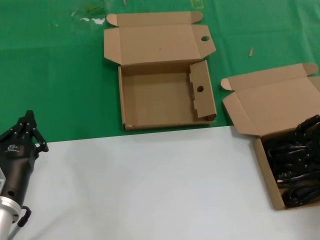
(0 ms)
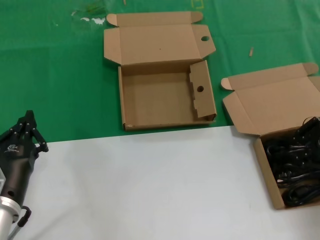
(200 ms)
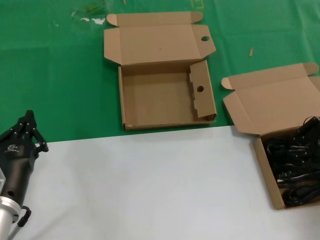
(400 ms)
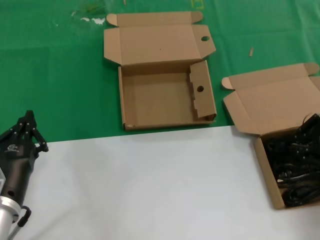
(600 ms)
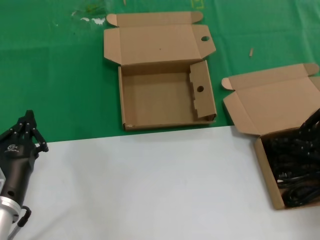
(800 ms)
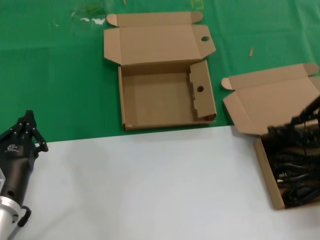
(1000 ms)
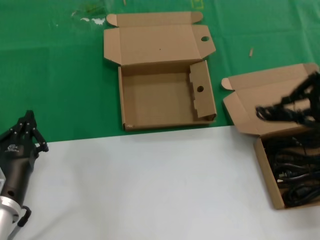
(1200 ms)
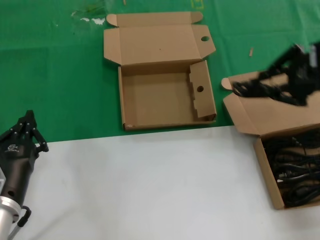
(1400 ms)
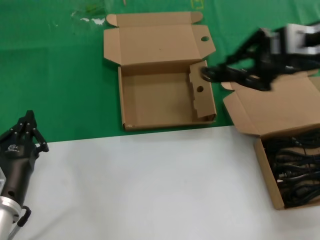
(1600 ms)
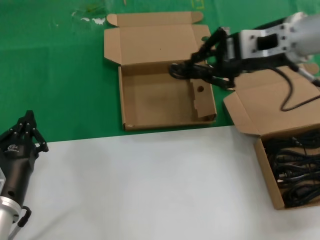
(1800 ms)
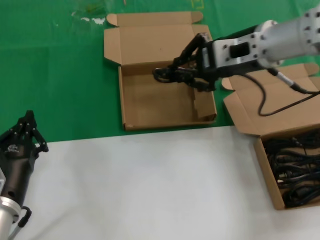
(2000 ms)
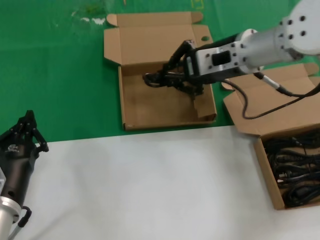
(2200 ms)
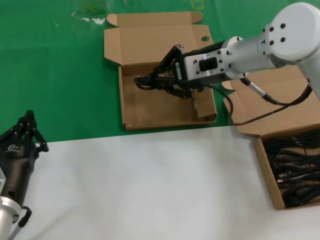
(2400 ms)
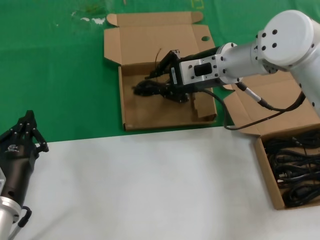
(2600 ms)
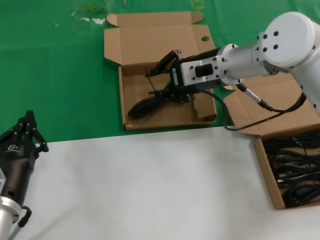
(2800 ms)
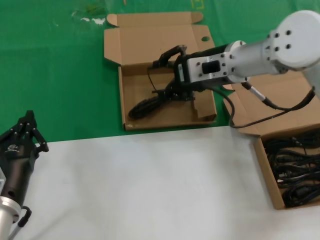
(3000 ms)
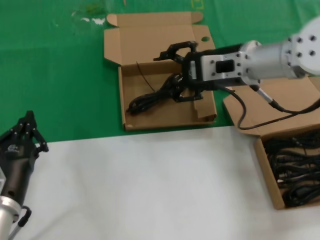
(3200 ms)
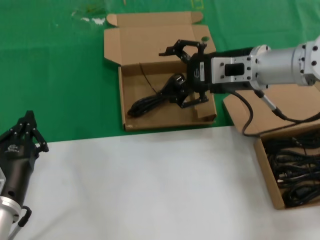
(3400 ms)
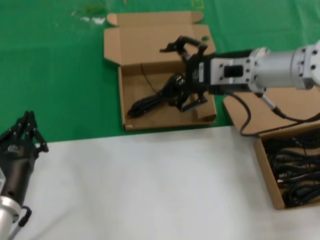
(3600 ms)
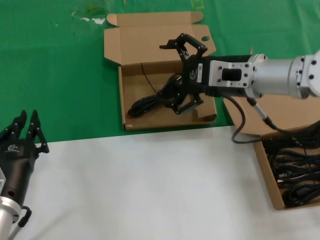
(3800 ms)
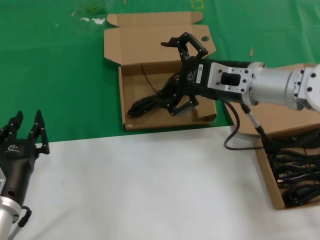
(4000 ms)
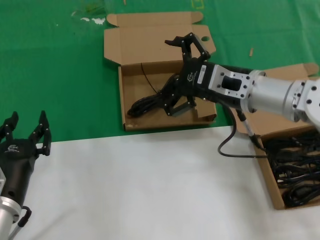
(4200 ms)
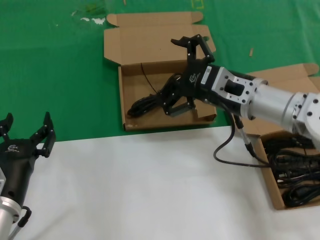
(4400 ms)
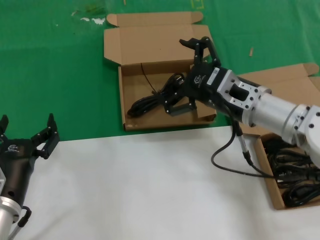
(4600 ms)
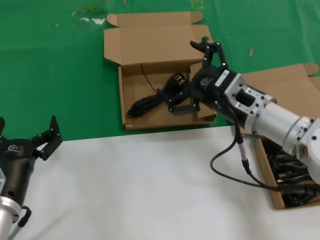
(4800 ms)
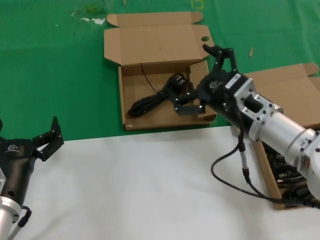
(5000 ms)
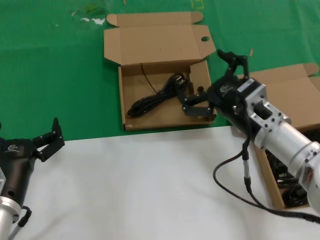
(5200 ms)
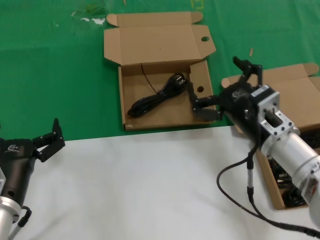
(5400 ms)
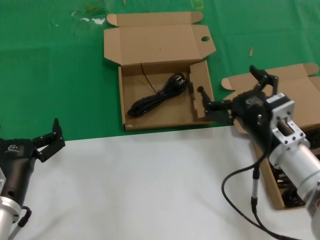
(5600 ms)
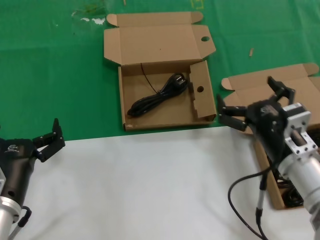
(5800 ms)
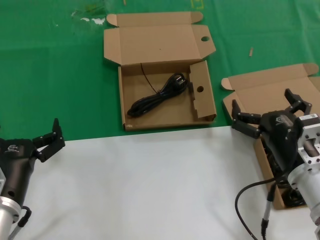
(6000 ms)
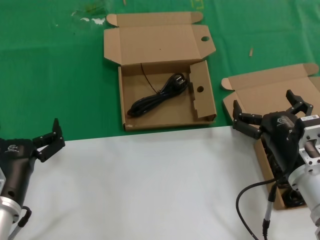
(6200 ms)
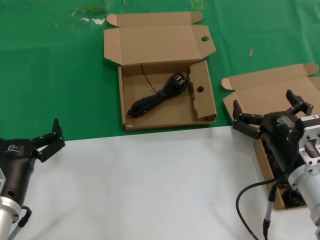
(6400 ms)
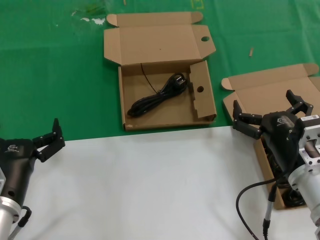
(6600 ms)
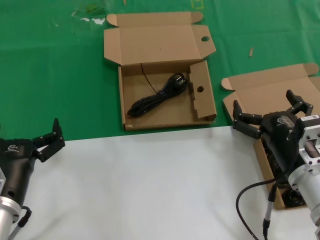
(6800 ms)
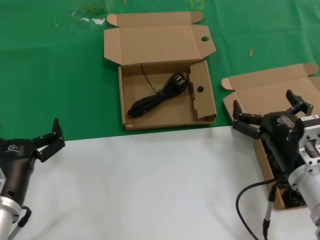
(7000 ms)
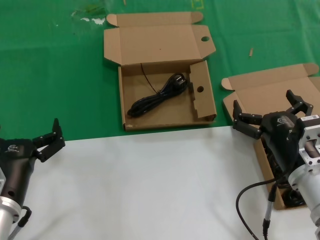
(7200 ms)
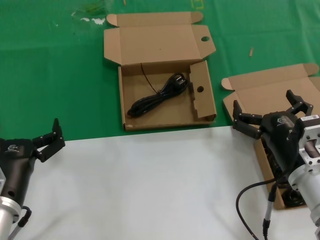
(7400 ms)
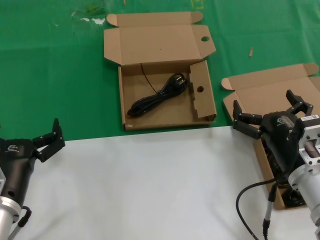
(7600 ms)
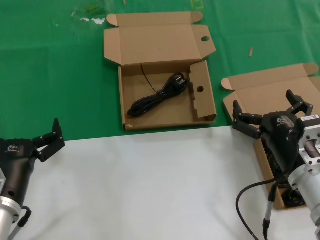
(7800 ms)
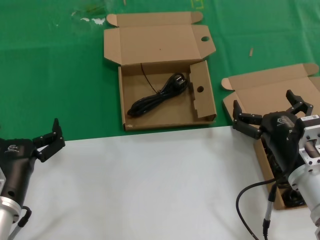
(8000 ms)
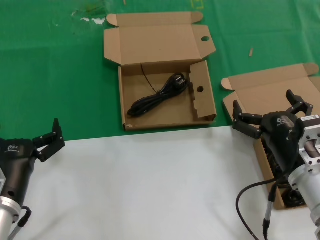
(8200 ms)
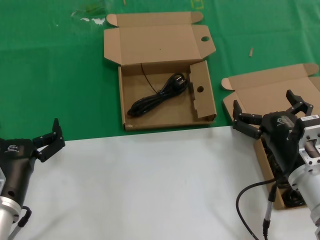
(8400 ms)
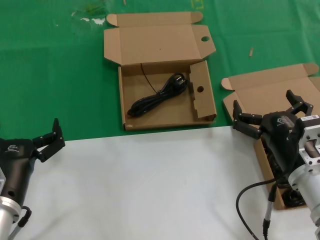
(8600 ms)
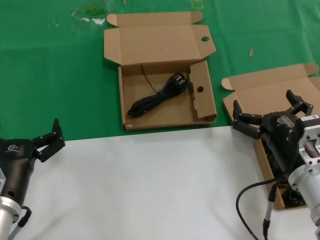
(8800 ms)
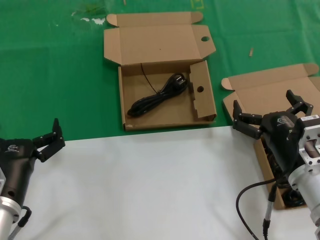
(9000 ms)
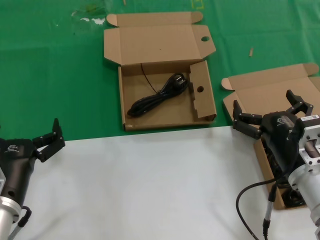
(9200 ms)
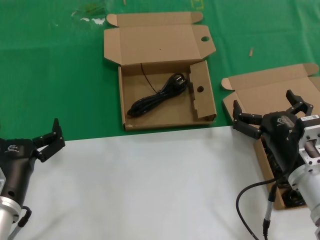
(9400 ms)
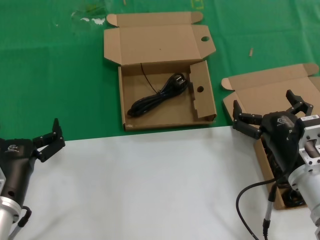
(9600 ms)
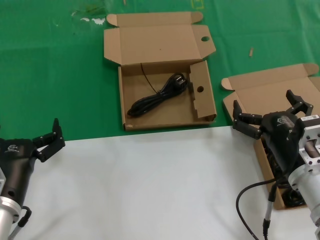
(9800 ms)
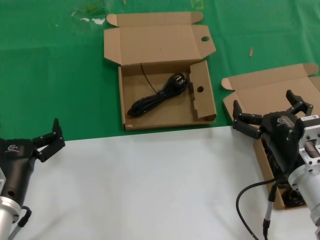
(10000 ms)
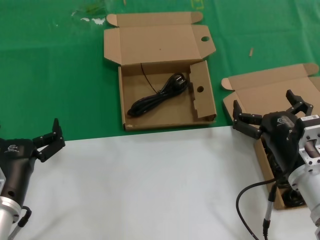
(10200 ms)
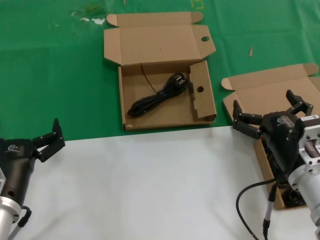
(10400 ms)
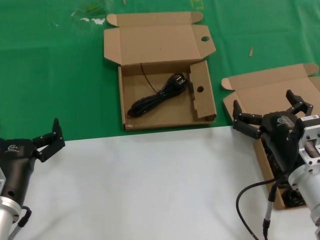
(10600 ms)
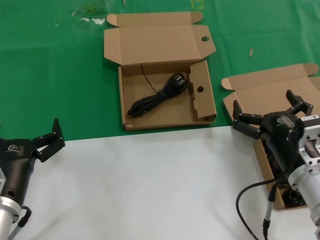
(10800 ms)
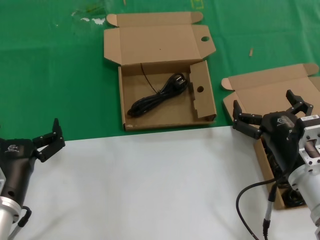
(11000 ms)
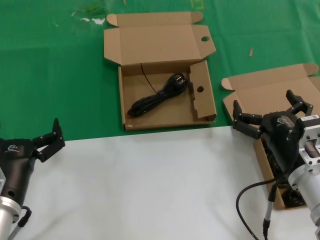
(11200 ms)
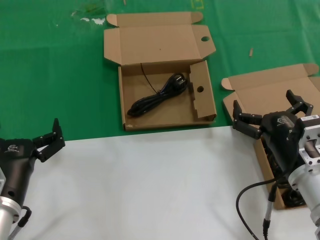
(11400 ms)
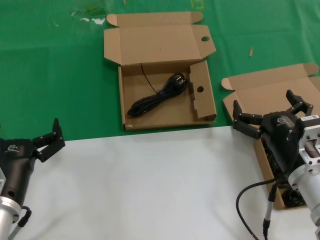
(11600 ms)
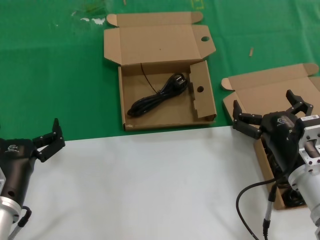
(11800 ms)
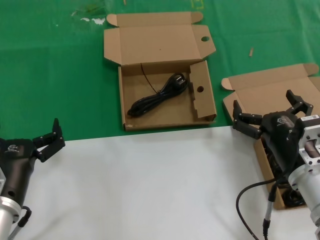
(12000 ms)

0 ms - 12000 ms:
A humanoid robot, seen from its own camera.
Task of the whole recording: take the parts from the box containing them and put them into an empty box.
Step, 800 ms - 3000 ms: Place the data cable in the another box.
0 ms - 1600 ms: The right hand moves upward and to the left, some 20 cm.
1600 ms - 3000 ms: The right hand moves to the left, downward and forward, roughly 20 cm.
3000 ms - 4400 ms: The right hand goes about 10 cm backward and downward.
4400 ms - 6000 ms: The right hand travels downward and backward by roughly 15 cm.
6000 ms - 12000 ms: Neither hand changes place.

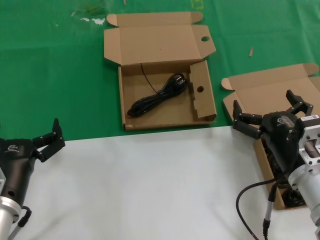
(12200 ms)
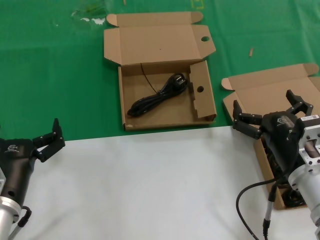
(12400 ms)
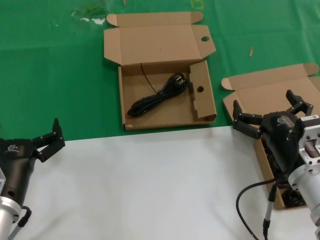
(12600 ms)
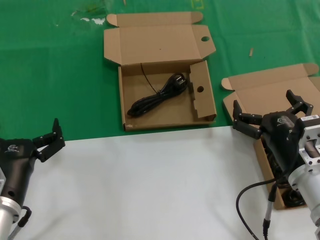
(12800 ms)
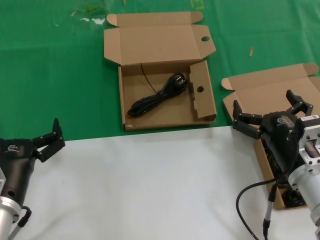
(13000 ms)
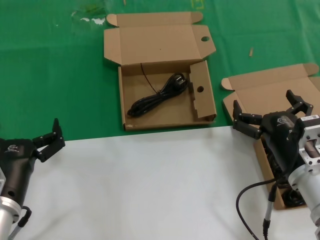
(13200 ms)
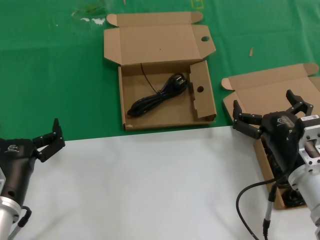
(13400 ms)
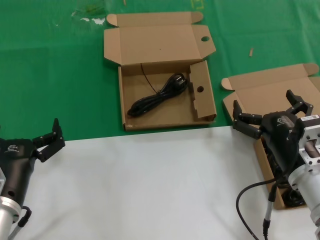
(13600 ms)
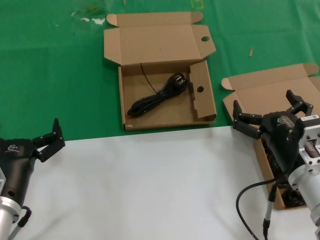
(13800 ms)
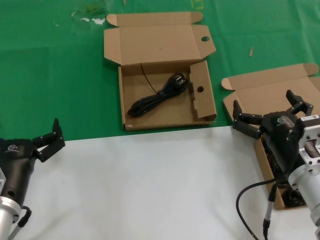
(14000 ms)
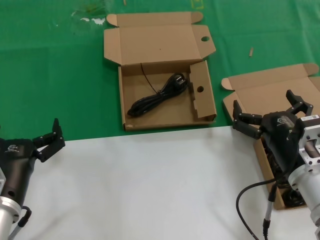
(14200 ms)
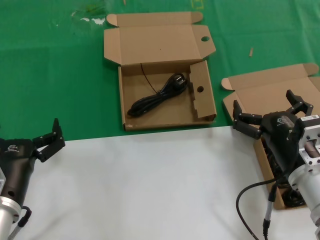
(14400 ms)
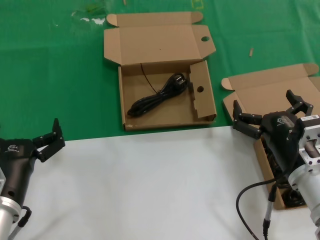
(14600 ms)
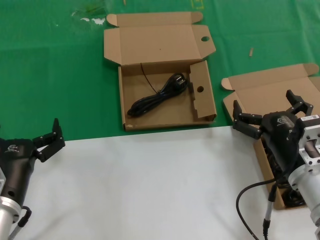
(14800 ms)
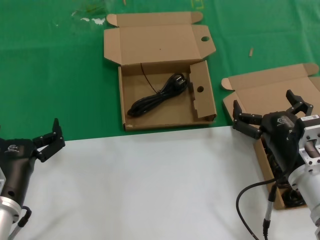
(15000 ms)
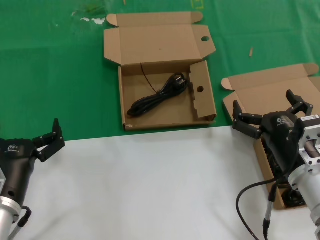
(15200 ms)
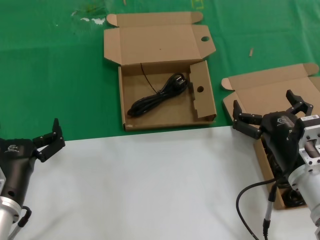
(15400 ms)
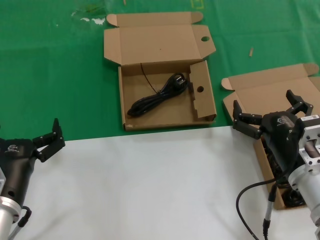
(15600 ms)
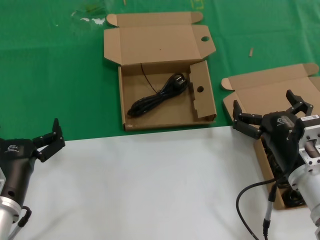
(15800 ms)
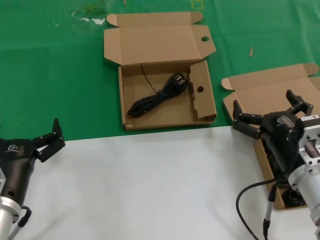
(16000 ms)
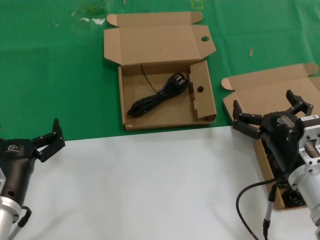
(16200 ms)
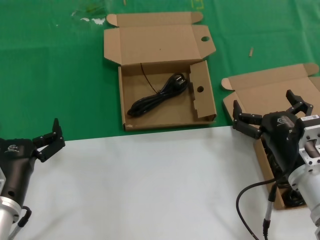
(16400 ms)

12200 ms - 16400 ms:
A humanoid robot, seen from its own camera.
Task of the whole recording: take the parts from the box containing them and put them into an empty box.
12200 ms - 16400 ms: Both hands stay about where they are.

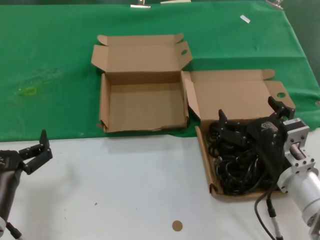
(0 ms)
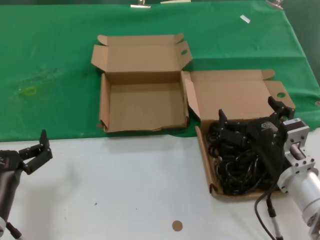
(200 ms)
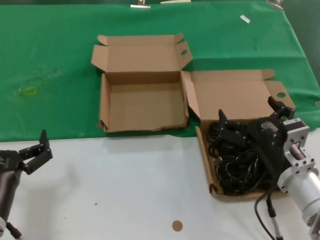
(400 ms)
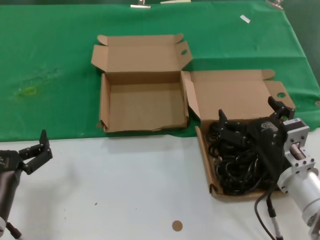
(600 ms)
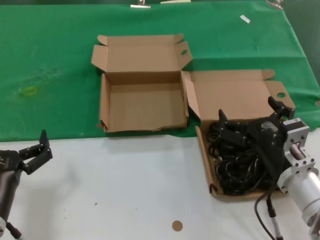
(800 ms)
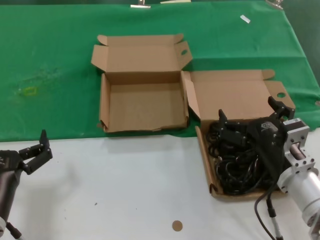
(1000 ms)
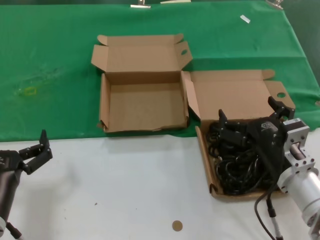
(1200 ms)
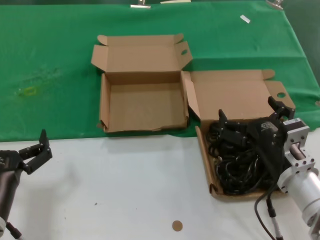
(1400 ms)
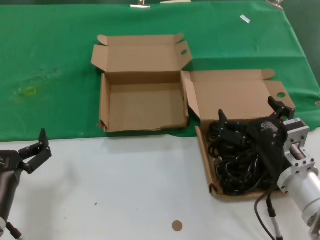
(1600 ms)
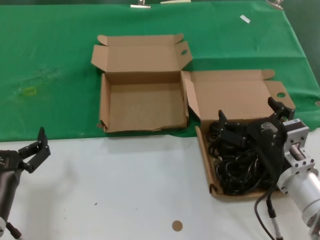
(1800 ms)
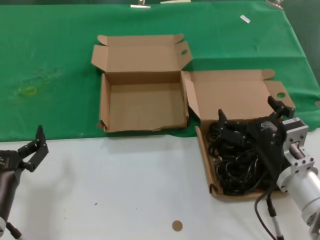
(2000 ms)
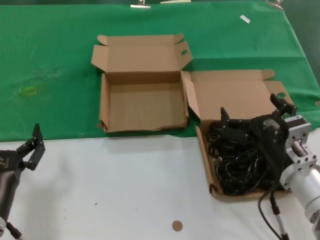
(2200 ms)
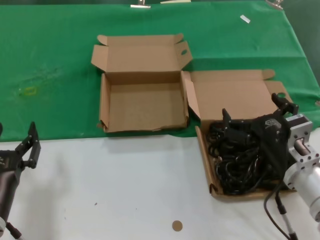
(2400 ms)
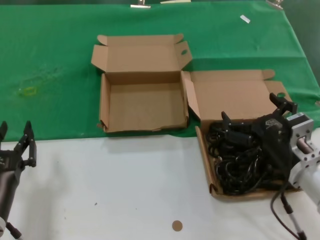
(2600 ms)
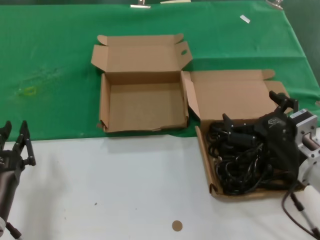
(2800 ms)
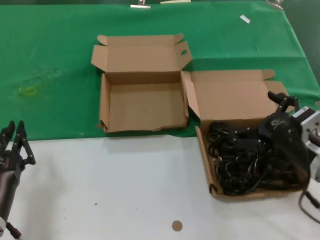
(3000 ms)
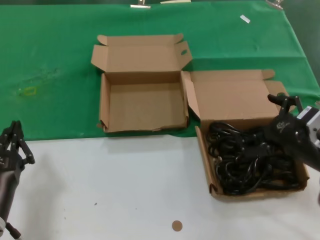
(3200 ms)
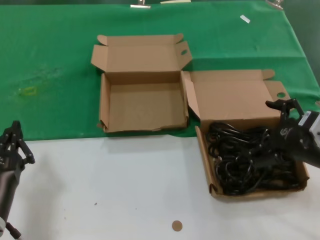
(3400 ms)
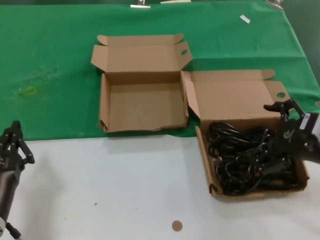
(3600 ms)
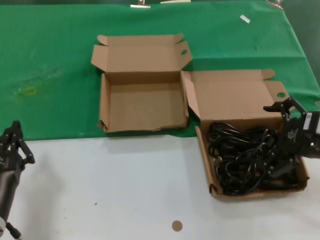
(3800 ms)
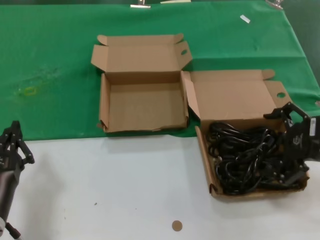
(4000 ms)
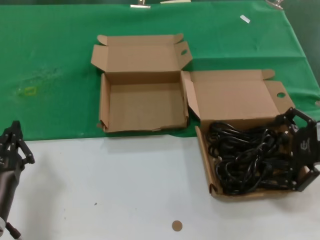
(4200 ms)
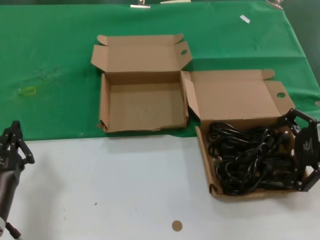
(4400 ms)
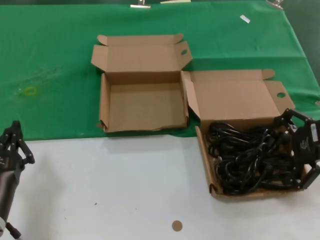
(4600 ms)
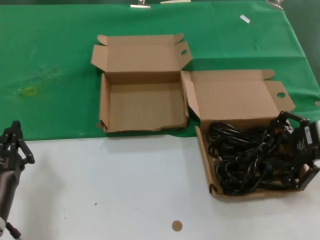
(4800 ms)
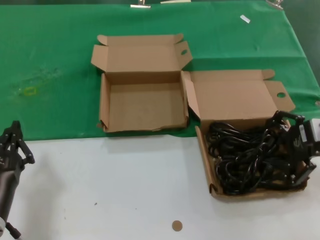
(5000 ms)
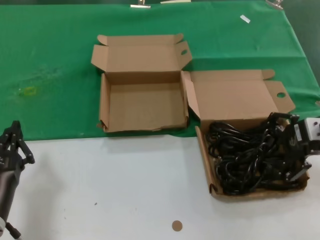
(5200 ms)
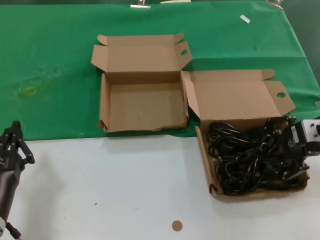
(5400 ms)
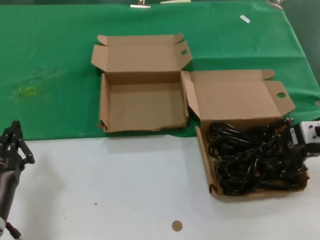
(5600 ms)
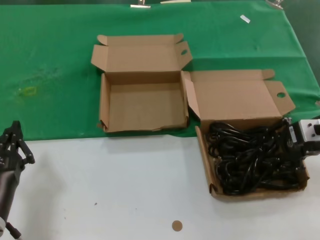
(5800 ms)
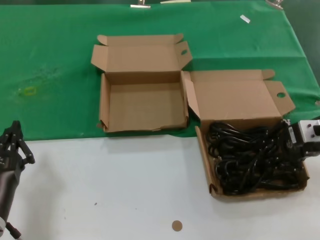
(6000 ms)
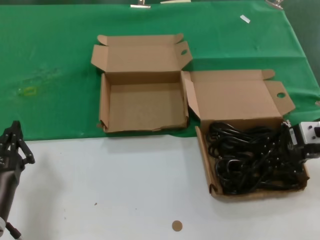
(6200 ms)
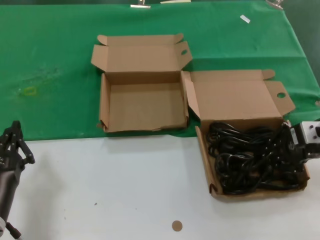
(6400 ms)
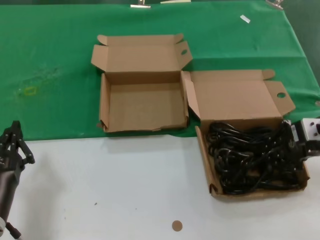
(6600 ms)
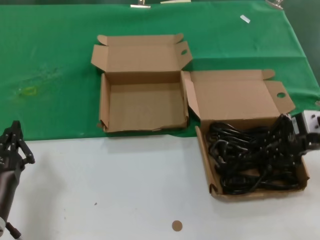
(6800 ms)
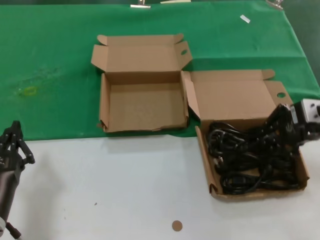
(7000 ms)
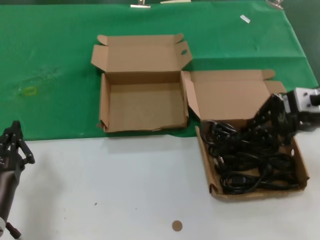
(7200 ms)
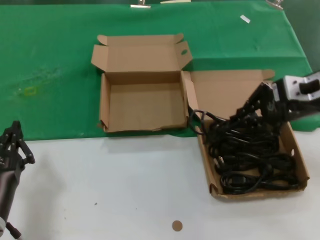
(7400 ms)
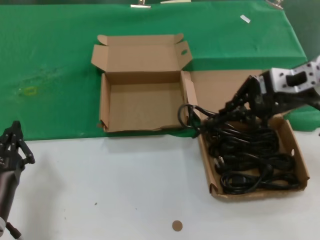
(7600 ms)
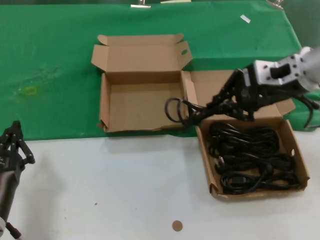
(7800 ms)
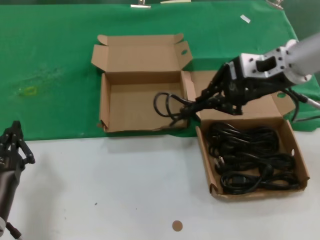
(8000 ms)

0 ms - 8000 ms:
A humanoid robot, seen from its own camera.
Task of the whole recording: take the parts from the box containing them and put them into an empty box.
Step, 0 ms - 6200 ms: Grasp the data cable.
0 ms - 1600 ms: Neither hand changes place.
1600 ms - 3200 ms: The right hand is displaced to the right and upward by about 10 cm.
3200 ms - 4800 ms: The right hand is displaced upward, to the right and forward by some 10 cm.
4800 ms - 6400 ms: There are only small adjustments of the hands.
6400 ms - 8000 ms: The right hand heads to the left, upward and forward, covering about 15 cm.
